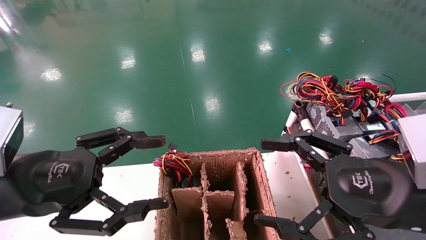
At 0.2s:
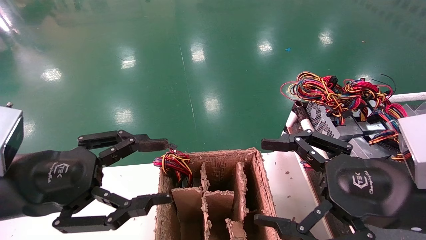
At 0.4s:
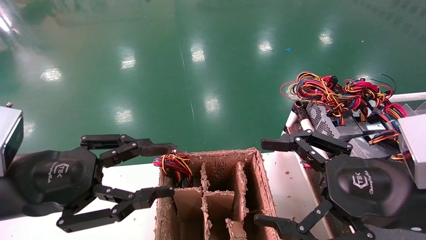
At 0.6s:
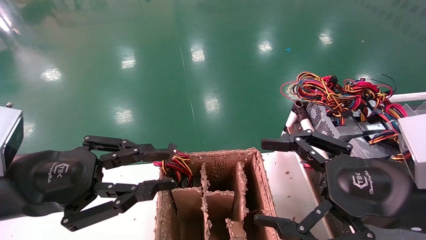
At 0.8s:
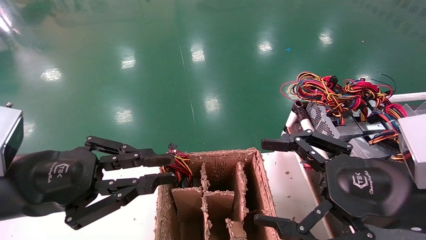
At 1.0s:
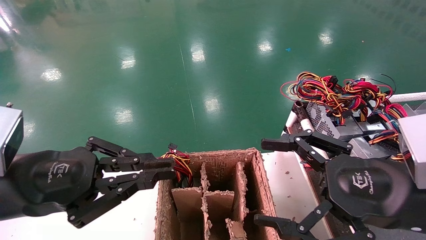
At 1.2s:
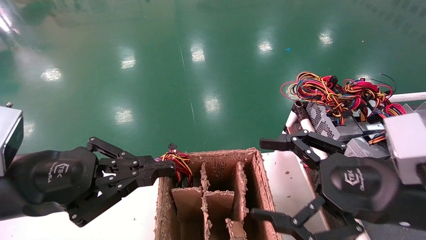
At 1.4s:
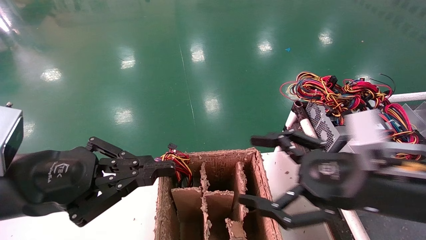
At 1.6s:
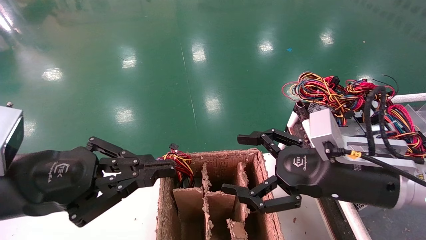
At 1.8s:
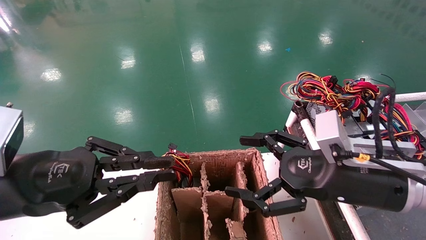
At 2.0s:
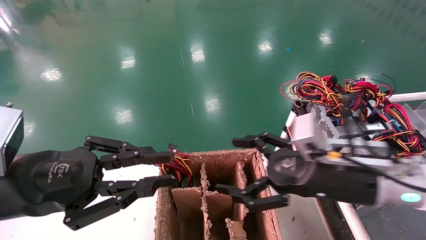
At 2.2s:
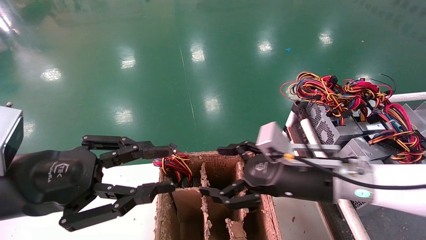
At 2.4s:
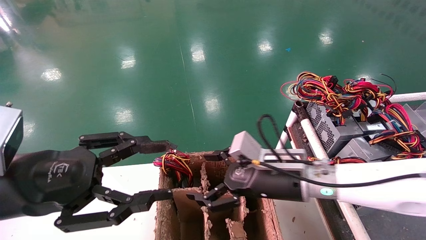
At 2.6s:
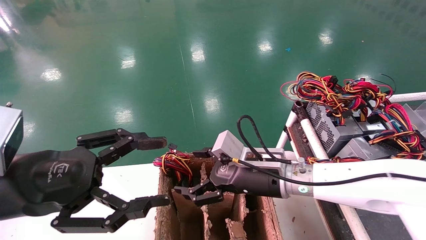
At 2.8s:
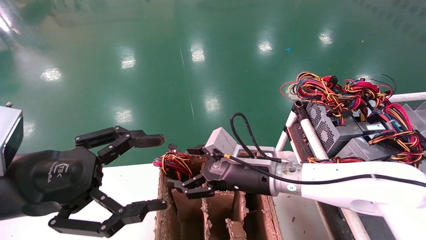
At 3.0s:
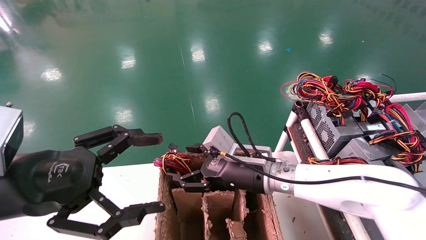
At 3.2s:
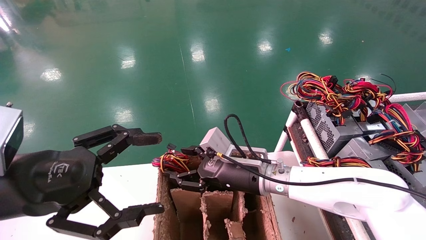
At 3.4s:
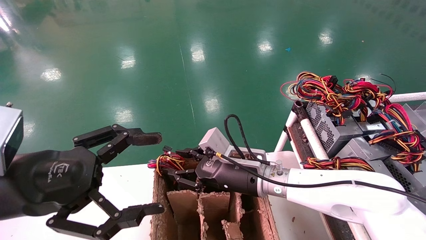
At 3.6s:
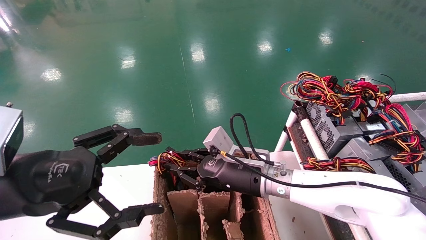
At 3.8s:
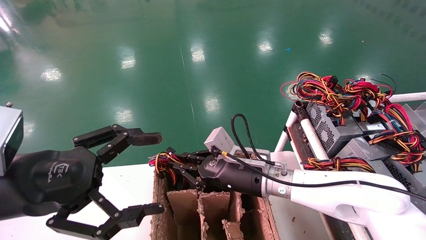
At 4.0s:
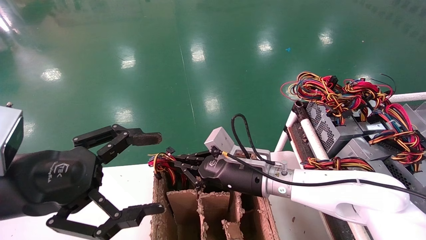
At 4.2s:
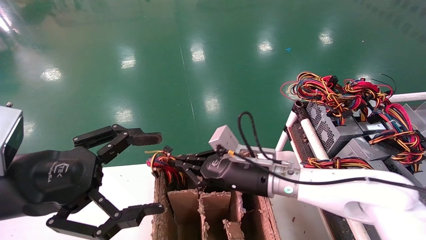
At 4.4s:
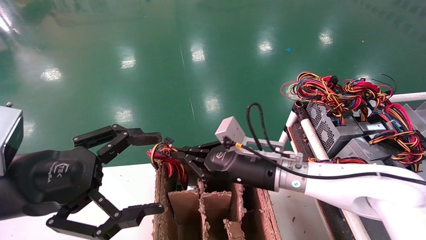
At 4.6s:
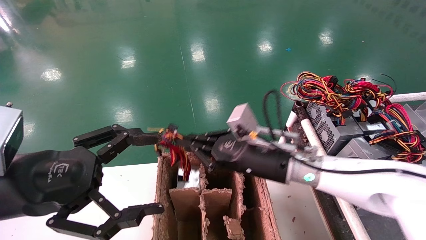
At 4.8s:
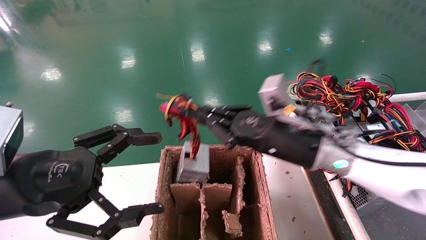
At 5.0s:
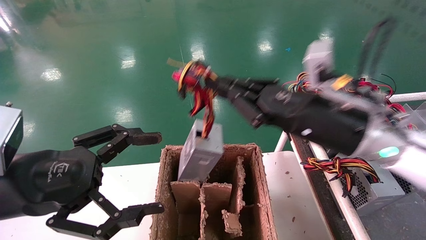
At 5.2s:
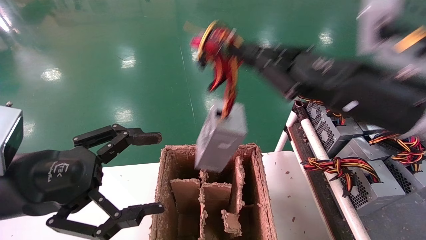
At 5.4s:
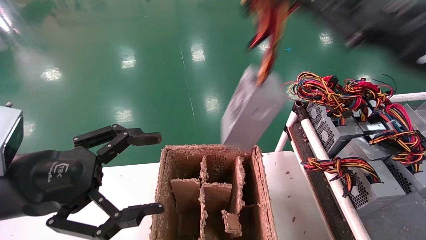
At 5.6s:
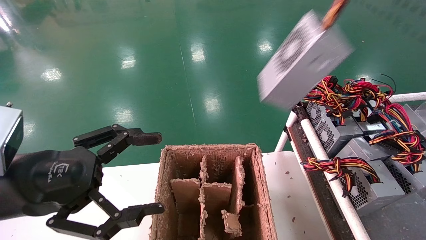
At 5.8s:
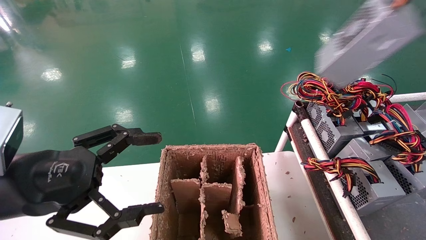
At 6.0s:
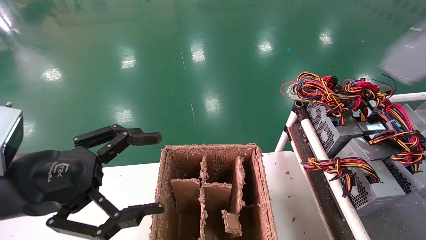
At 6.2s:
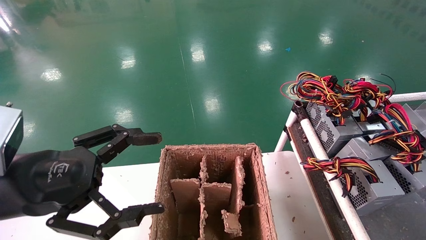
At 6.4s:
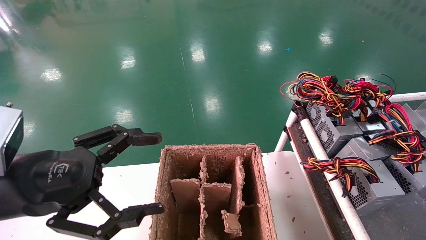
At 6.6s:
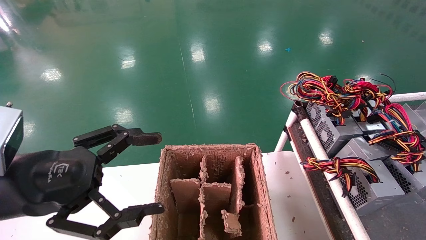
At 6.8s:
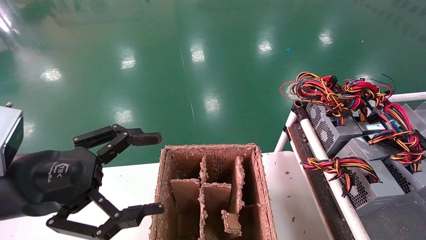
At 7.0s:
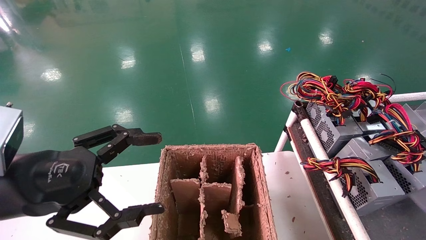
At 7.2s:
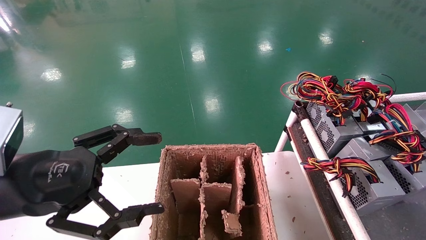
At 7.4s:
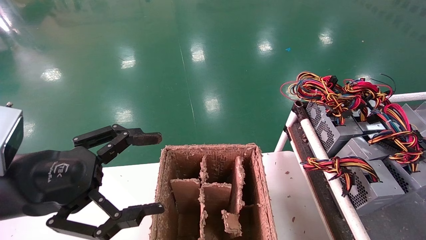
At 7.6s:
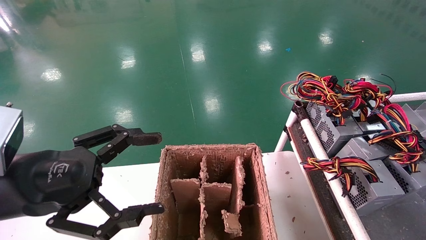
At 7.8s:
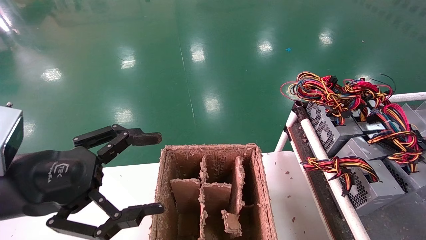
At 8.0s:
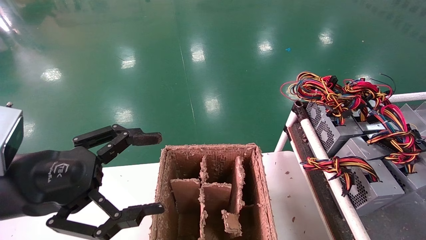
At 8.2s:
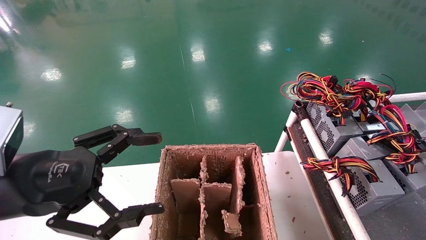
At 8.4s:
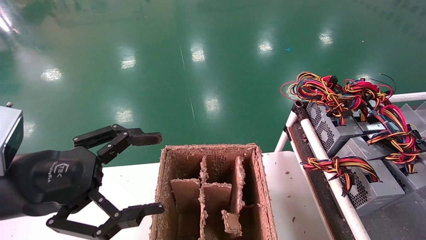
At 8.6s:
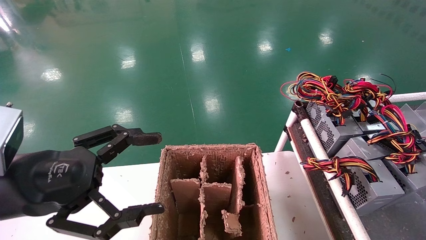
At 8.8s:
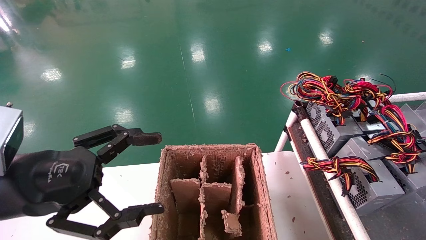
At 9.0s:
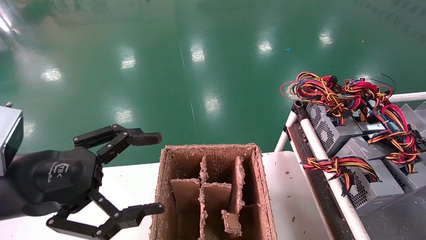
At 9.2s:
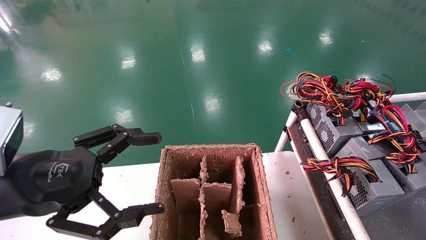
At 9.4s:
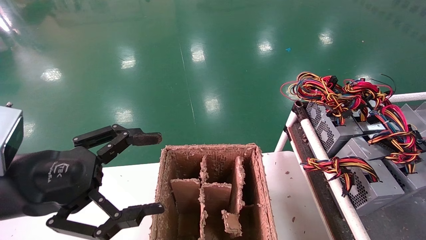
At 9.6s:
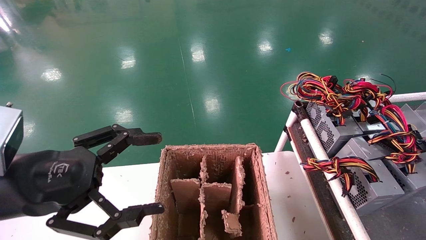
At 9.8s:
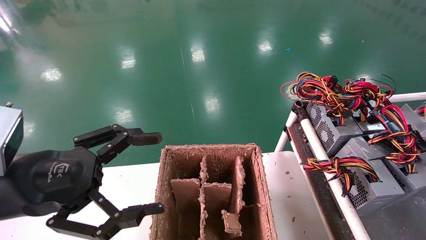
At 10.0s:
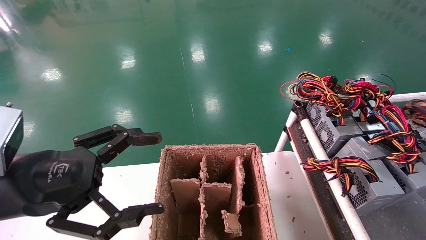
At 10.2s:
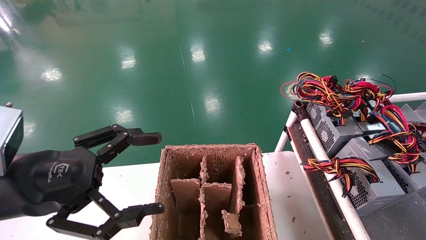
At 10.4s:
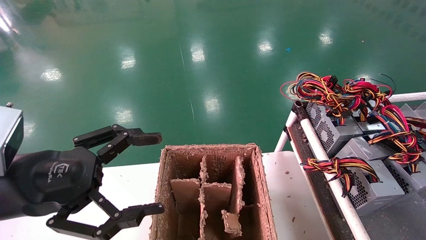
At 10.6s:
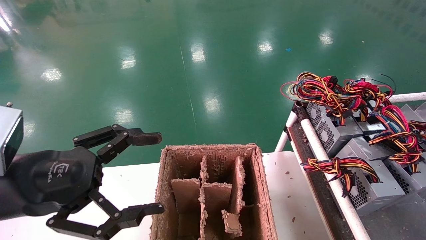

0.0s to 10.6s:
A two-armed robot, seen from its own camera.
Step, 1.6s to 4.8s: Grab and lift the power supply from the large box.
Step, 5.0s to 10.0s: Place the power supply on the operating table.
0.0s to 1.6s: The right gripper moves forward, roughly 5 cm. Meanwhile the left gripper closes.
1.6s to 3.0s: The right gripper moves to the left, forward and downward, some 20 cm; the left gripper opens its fingers.
3.0s to 4.6s: The right gripper shifts roughly 5 cm upward, and closes.
4.6s to 6.0s: The right gripper goes roughly 50 cm to the right, upward and backward.
6.0s to 7.6s: The right gripper shifts roughly 20 cm downward and to the right.
7.6s to 9.0s: The grippers make only small movements.
9.0s to 10.6s: The right gripper opens.

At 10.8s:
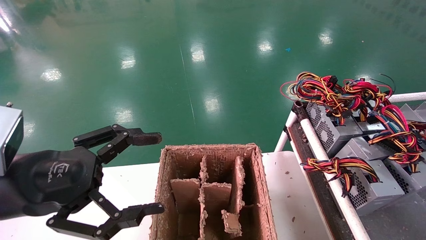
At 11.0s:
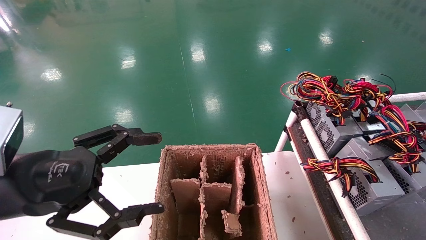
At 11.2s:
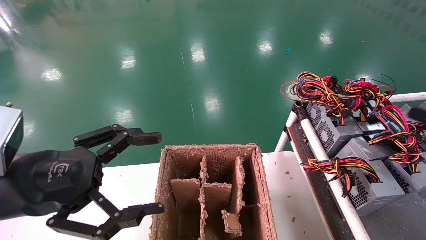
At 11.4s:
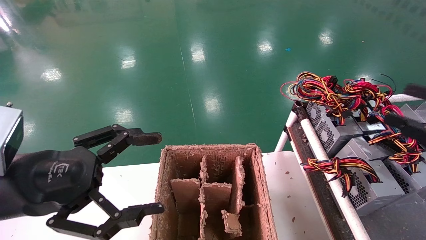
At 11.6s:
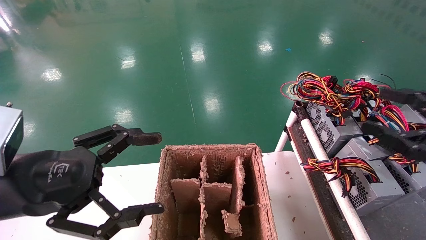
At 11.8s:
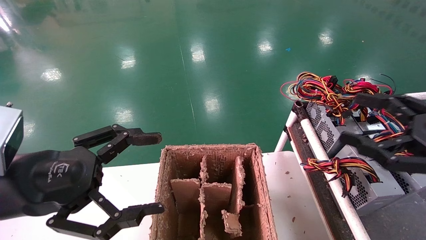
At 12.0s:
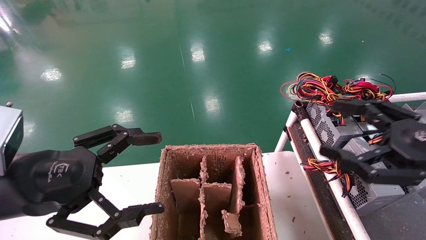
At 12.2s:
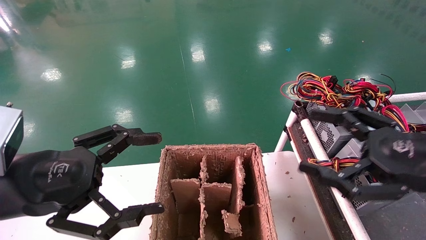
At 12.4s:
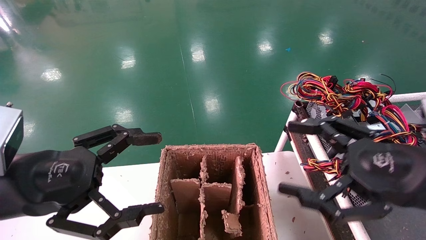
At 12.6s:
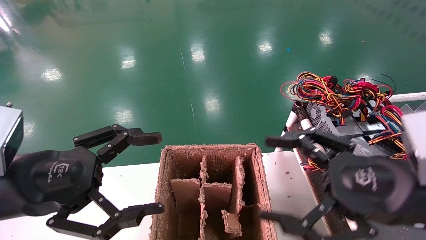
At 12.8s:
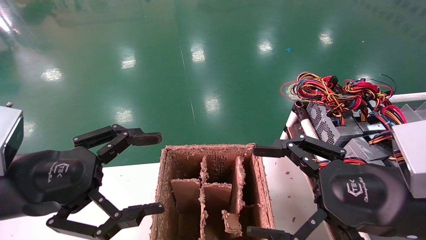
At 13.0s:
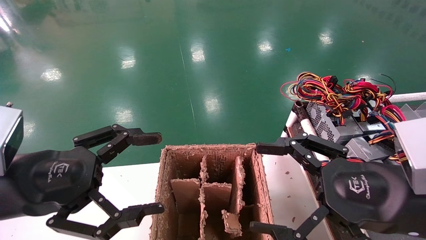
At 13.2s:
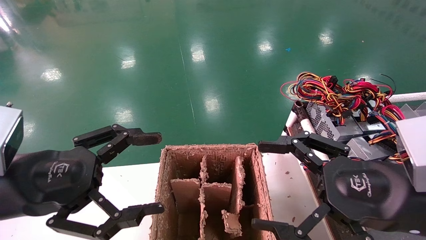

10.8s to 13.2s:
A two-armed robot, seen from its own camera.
10.8s to 12.0s: The right gripper is displaced to the left by roughly 20 cm.
12.0s to 13.2s: The right gripper travels to the left by roughly 10 cm.
